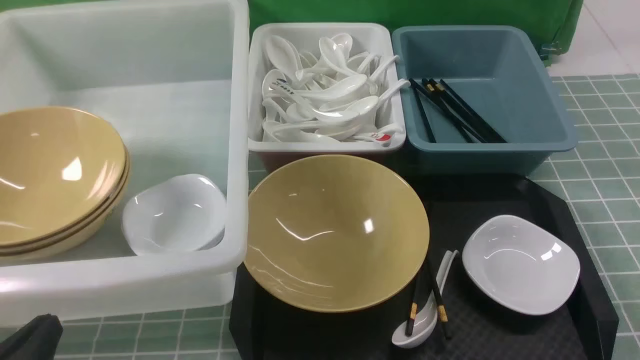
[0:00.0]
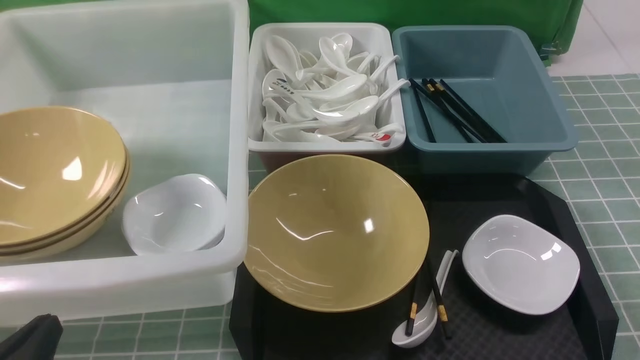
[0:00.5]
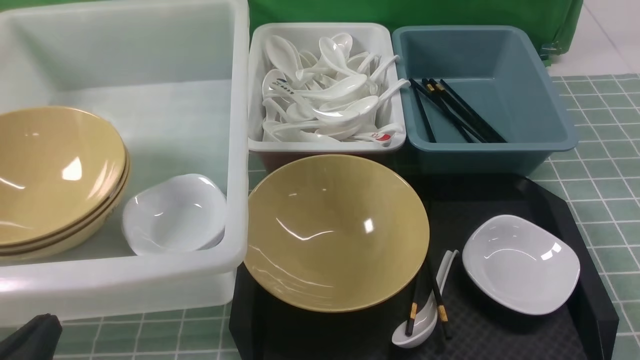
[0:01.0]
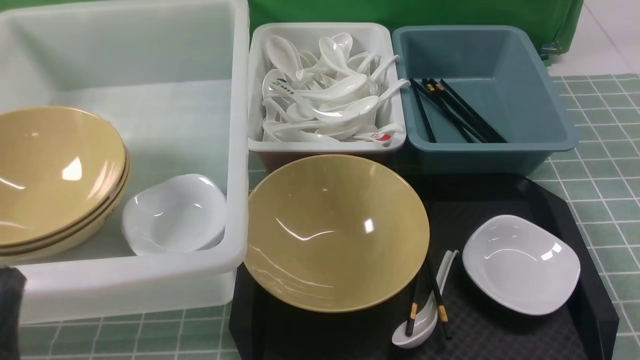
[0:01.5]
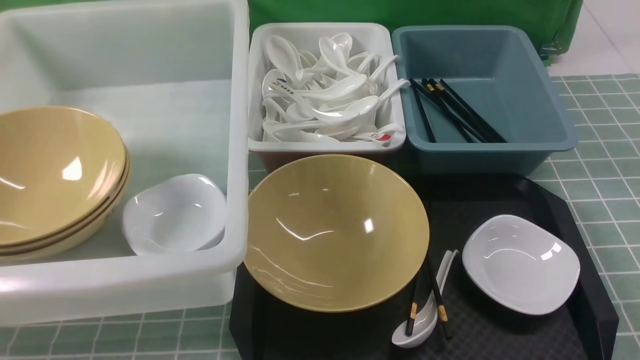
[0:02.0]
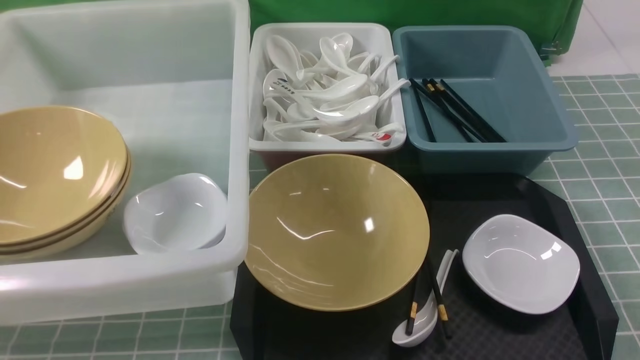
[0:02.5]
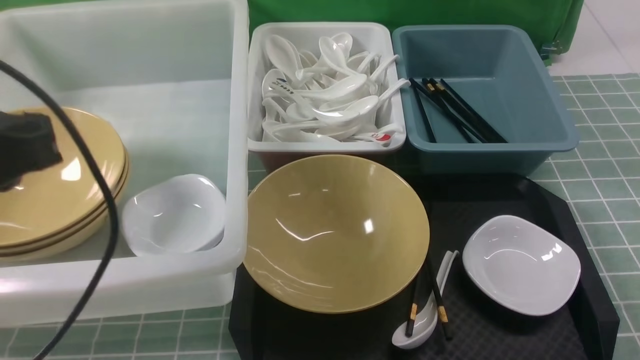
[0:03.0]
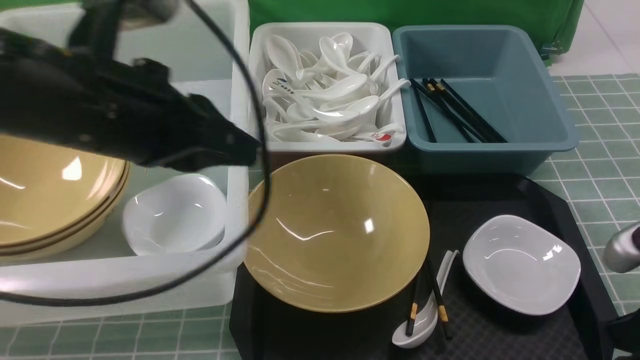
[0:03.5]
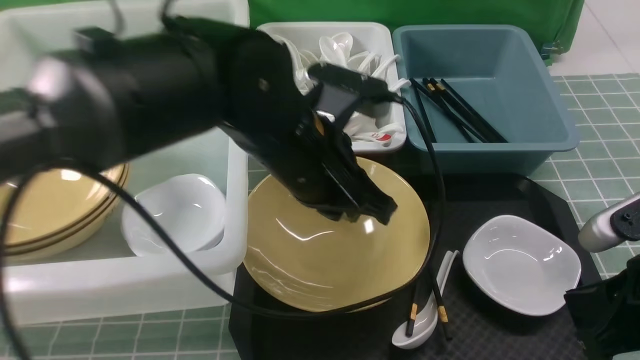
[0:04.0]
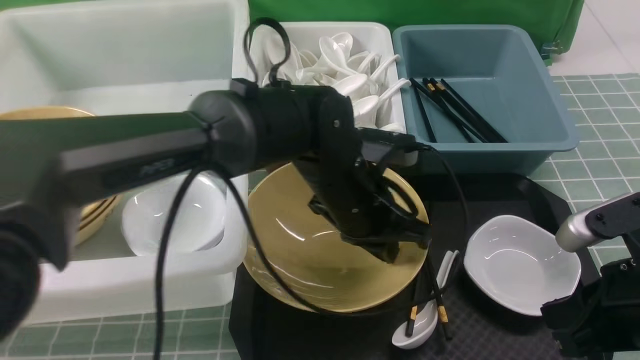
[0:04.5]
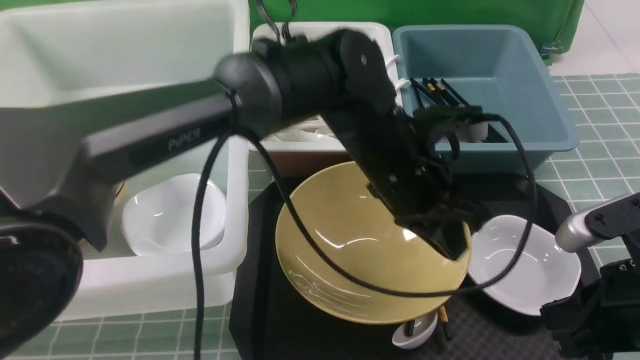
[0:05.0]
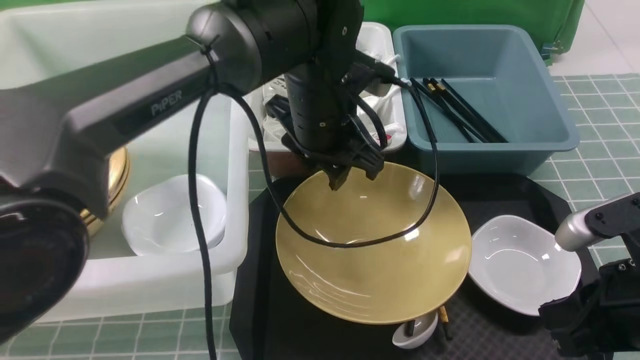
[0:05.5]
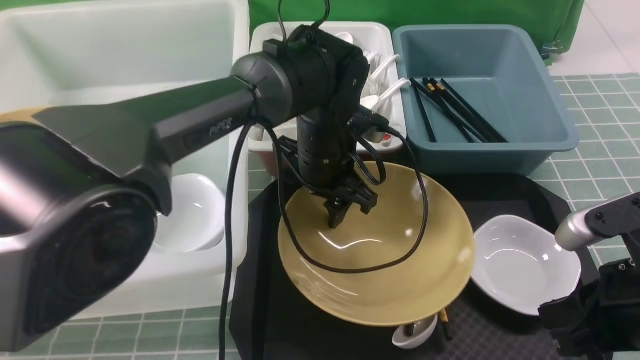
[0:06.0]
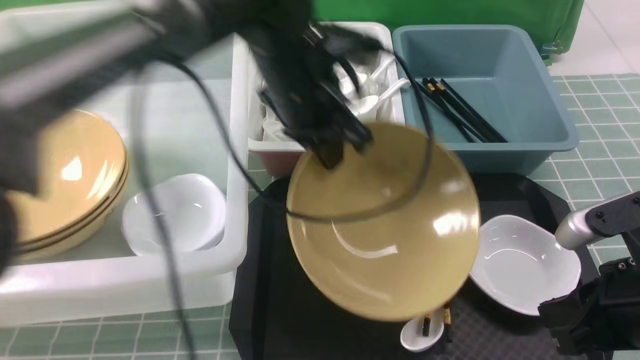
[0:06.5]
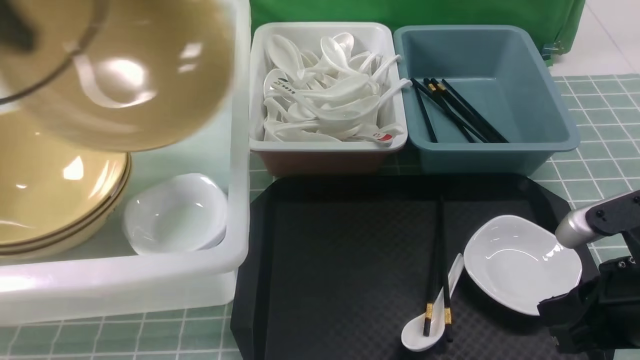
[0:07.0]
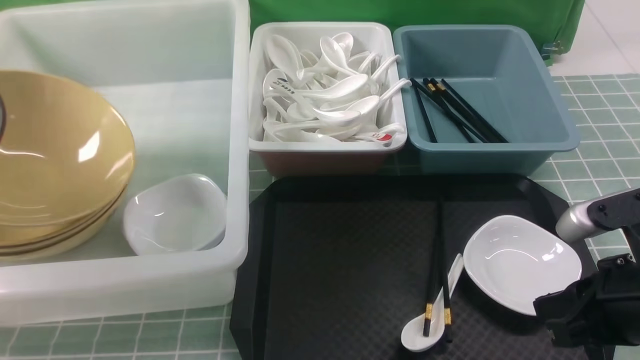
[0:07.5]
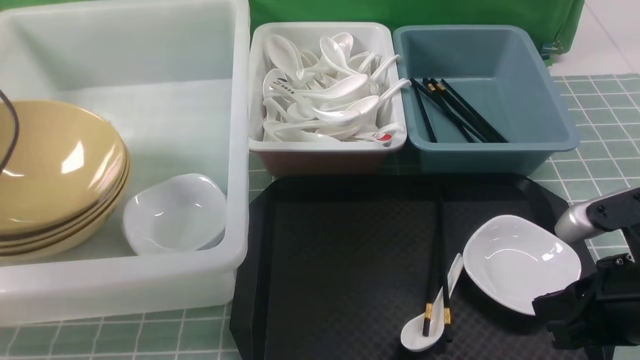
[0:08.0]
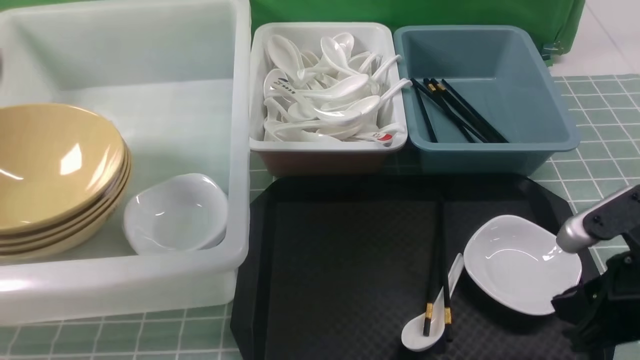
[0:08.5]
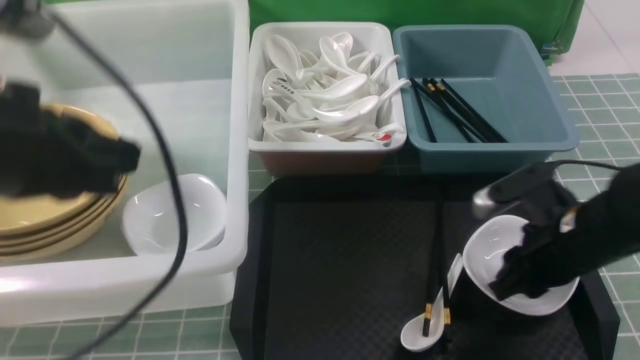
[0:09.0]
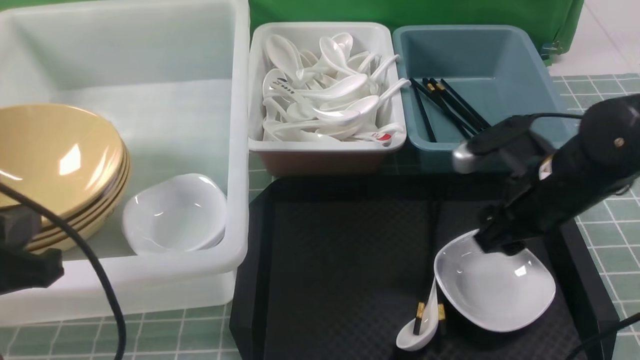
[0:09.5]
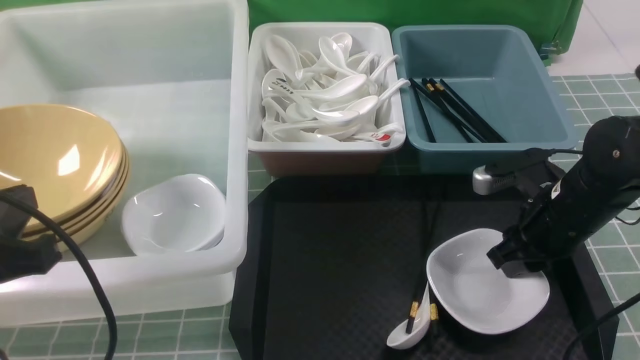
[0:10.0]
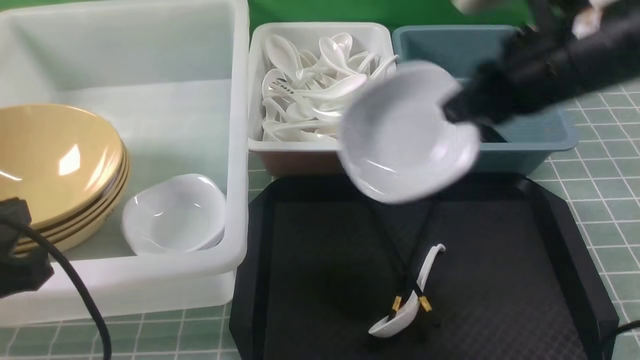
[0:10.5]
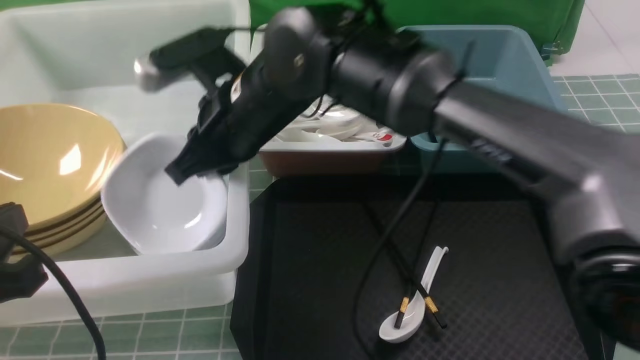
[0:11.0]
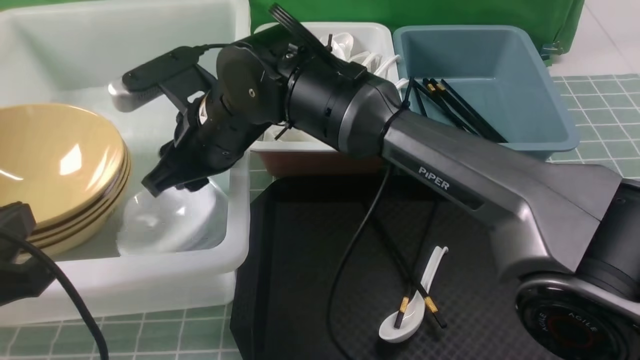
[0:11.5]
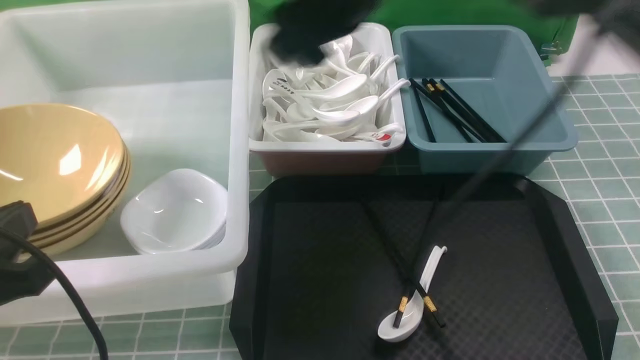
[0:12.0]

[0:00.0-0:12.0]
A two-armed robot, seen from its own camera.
Task of the whole recording: on blue table put chopsticks spoon bowls plates into blue grey white boxes.
Step, 0:00.0 to 0:06.0: use the left arm to grab the yellow noodle bowl on the left.
Step, 0:06.5 to 0:07.5: use the left arm to put the noodle bowl into the large storage box on the left.
Step, 0:08.5 to 0:10.0: use the right arm to grab the plate.
Step, 0:10.5 to 0:11.0: use the right arm to put the plate into the large storage box on the left.
0:00.0 to 0:02.0: The left gripper moves upward, approximately 10 cm.
0:02.0 to 0:04.0: The right gripper goes some 15 cm forward and to the left, and closes; the left gripper travels forward and to the right by roughly 35 cm.
0:04.0 to 0:06.0: The left gripper heads forward and downward, covering roughly 10 cm, and opens its fingers.
0:06.0 to 0:08.0: The left gripper shifts approximately 40 cm to the left, and opens.
0:08.0 to 0:10.0: The right gripper shifts about 15 cm forward, and opens its fingers. The left gripper heads to the right and backward, covering roughly 25 cm, and closes.
0:10.0 to 0:12.0: The right gripper moves to the left and upward, roughly 25 cm, and opens up.

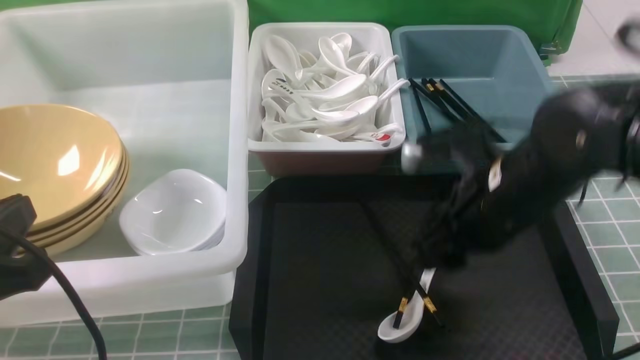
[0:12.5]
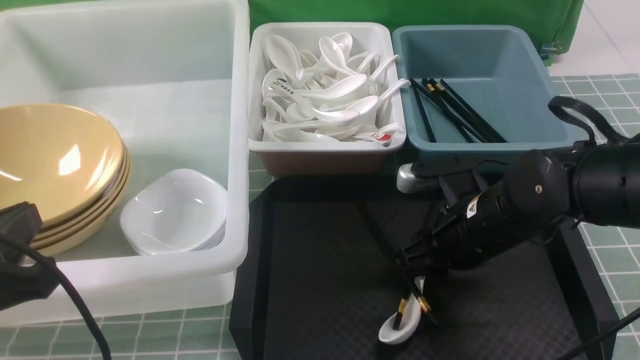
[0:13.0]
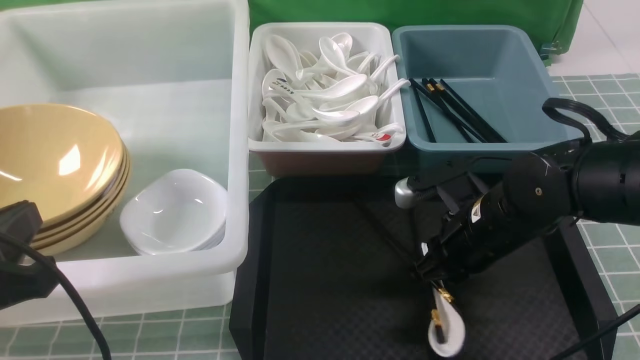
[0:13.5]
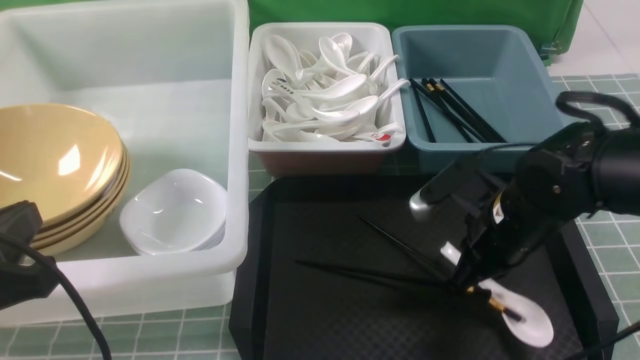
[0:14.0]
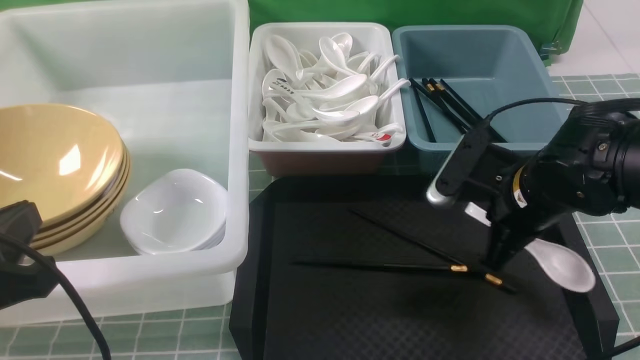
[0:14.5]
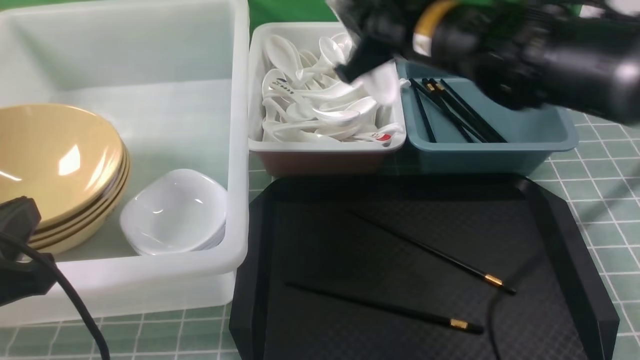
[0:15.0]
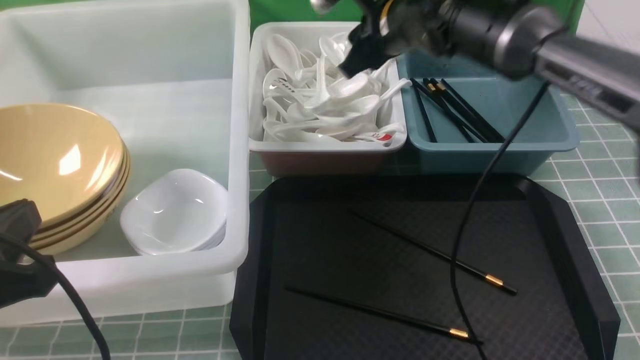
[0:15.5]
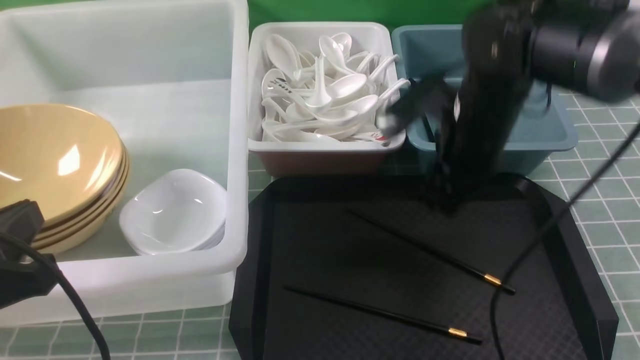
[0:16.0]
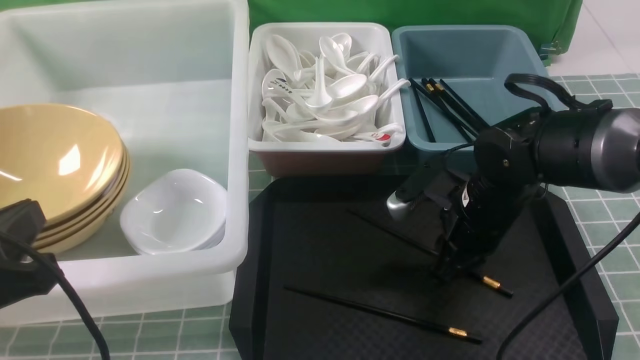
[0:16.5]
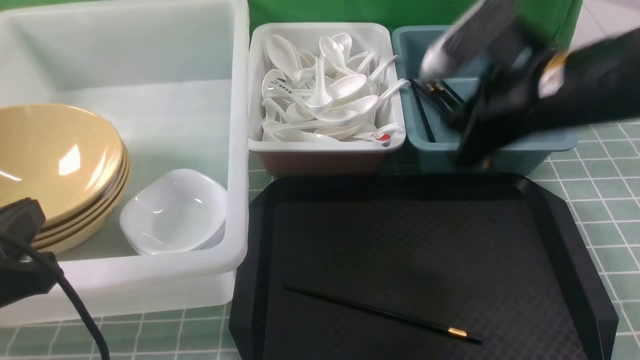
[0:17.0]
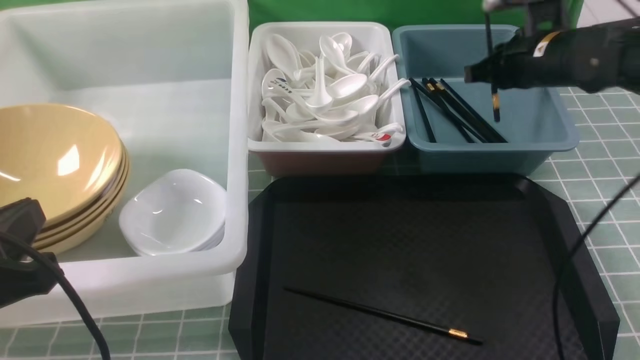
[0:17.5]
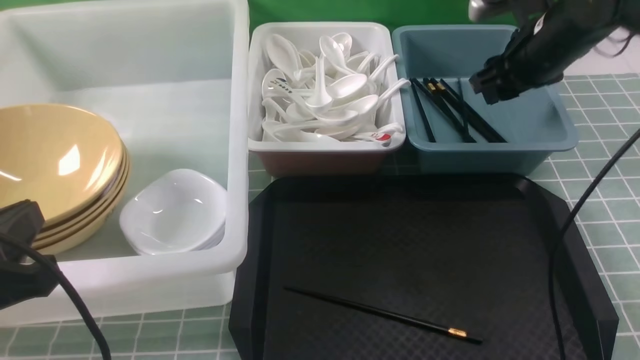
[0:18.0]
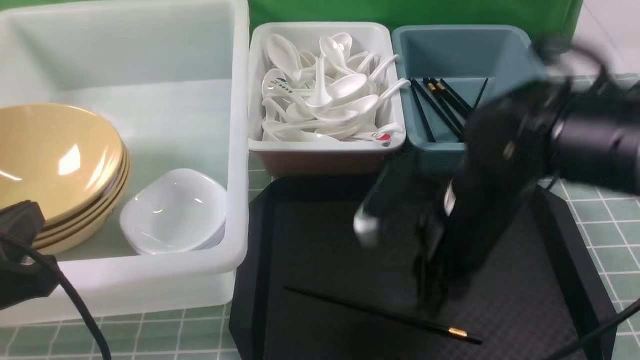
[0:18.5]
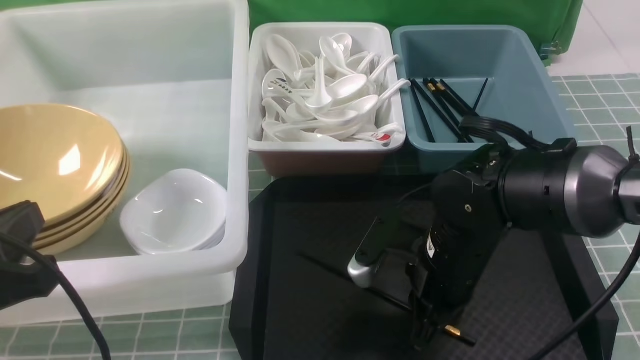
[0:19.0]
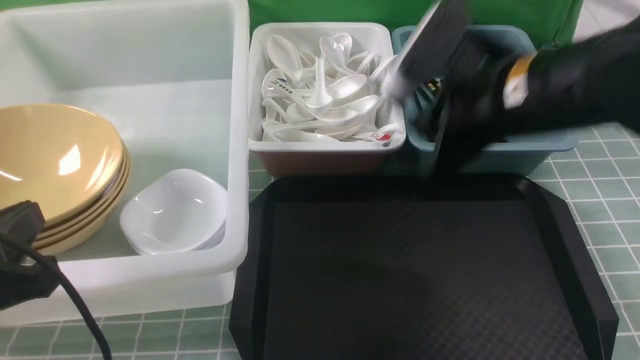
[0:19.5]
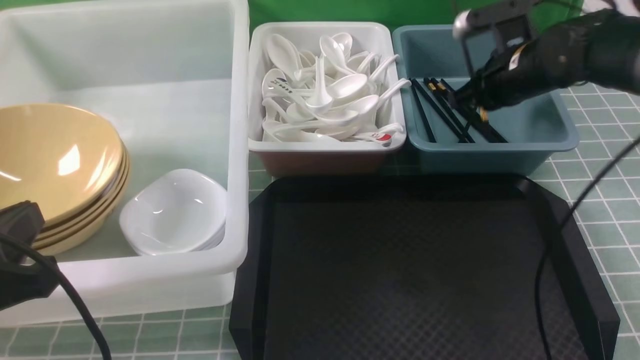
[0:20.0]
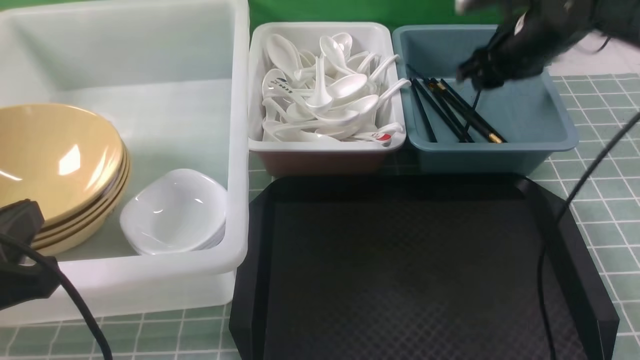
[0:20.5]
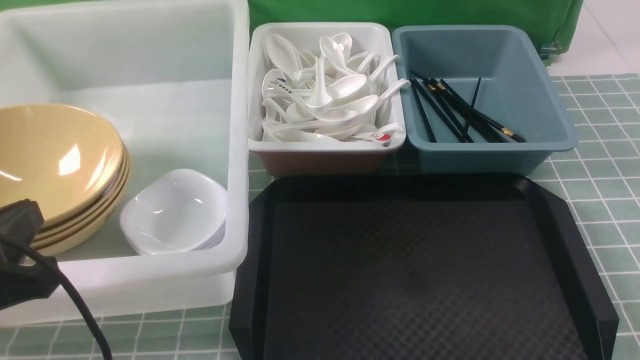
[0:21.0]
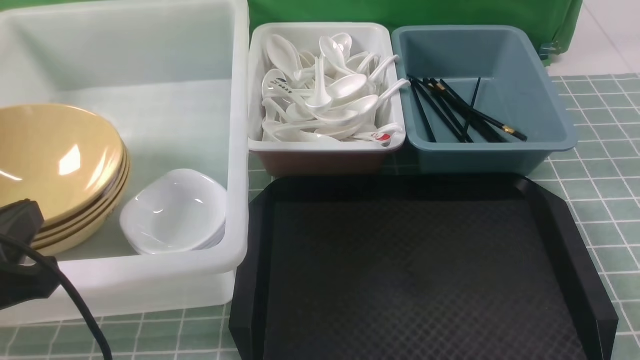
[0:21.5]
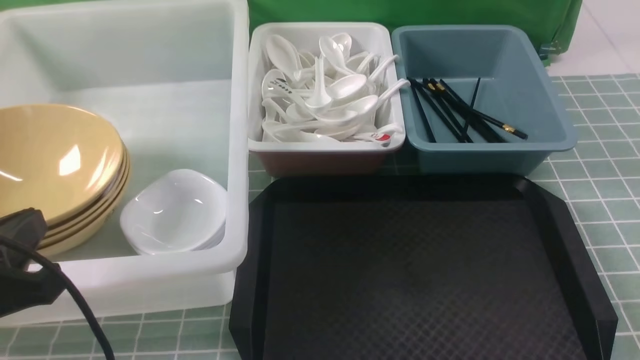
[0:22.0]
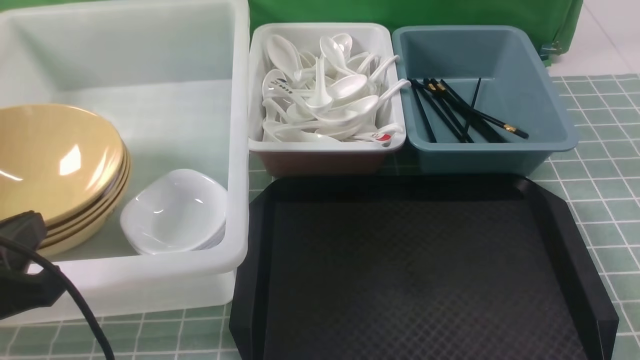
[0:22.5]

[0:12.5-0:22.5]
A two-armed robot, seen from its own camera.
Task of the whole recording: on blue table put chopsticks spoon bowls plates into blue grey white boxes.
Step, 0:12.5 to 0:14.0: use the right arm to grab the soup spoon in the middle.
Step, 0:14.5 to 0:15.5: use the right arm to put the soup spoon into the small storage box in the middle.
Step, 0:16.0 to 0:16.5: use the right arm to grab a chopstick.
Step, 0:17.0 to 0:17.5: use the right arm to put a chopstick into the small storage box on the right.
Step, 0:18.0 to 0:19.0: use the right arm to grab a chopstick.
Step, 0:19.5 to 0:20.5: use the right arm to put a chopstick into the small storage box on the right.
0:12.5 to 0:14.5: The right gripper closes up.
0:14.5 to 0:16.5: The right gripper goes about 5 cm downward, reaches about 15 cm forward, then returns, and opens and closes again.
0:16.5 to 0:18.5: The right gripper goes approximately 5 cm upward, and moves roughly 15 cm forward and comes back.
0:18.5 to 0:20.5: The right gripper shifts approximately 20 cm forward, to the right and upward, and closes, then opens again.
0:20.5 to 0:22.5: The right gripper travels backward by some 35 cm, and closes its fingers.
